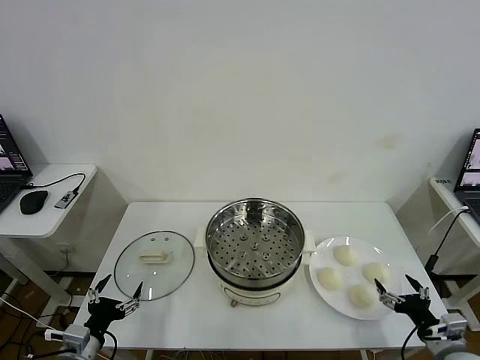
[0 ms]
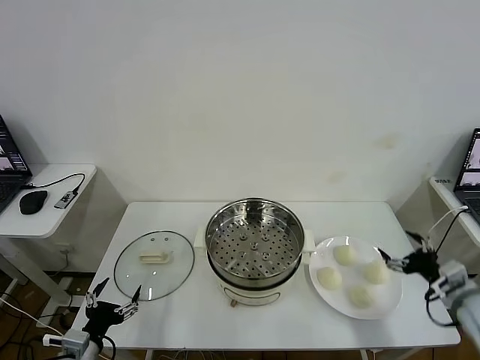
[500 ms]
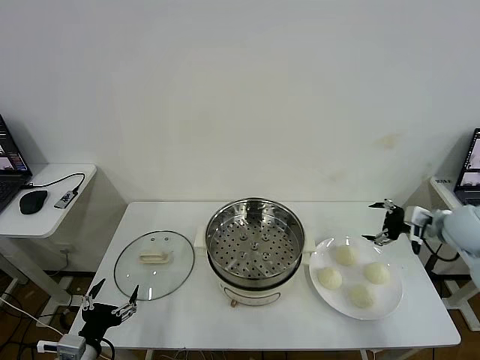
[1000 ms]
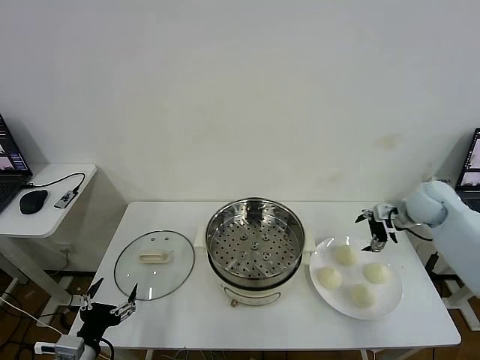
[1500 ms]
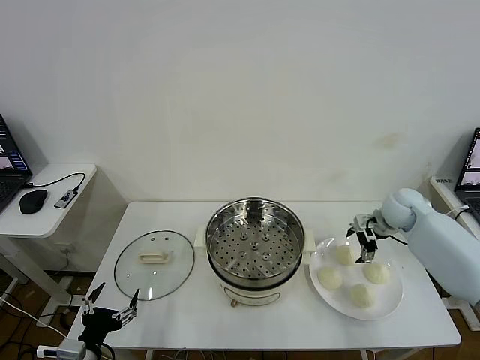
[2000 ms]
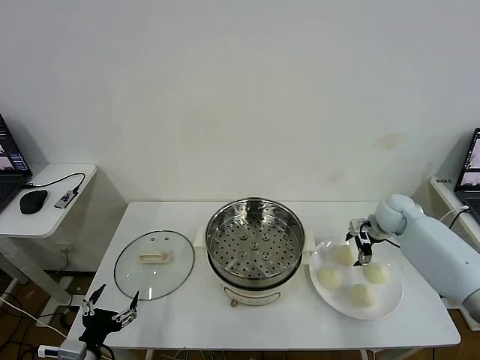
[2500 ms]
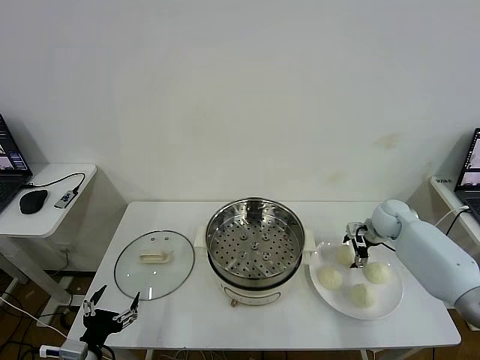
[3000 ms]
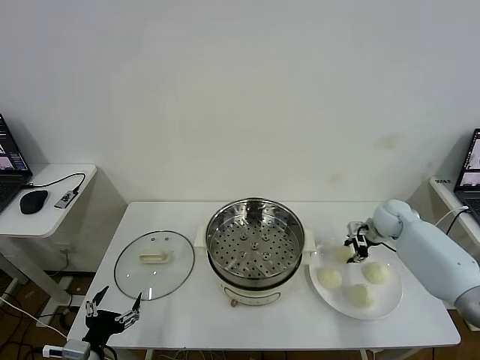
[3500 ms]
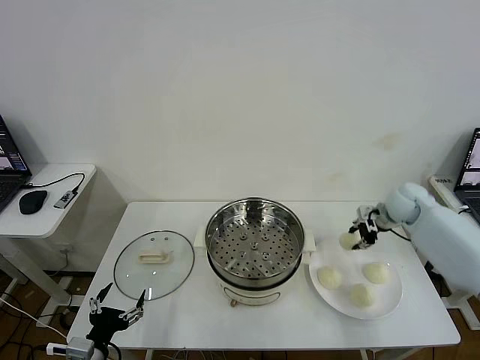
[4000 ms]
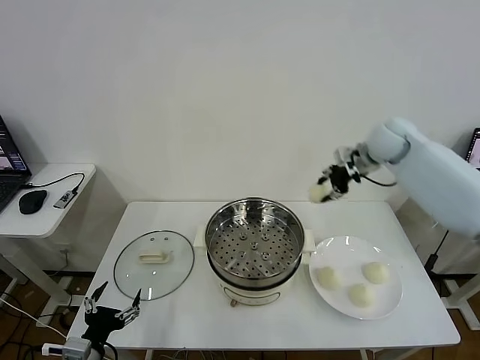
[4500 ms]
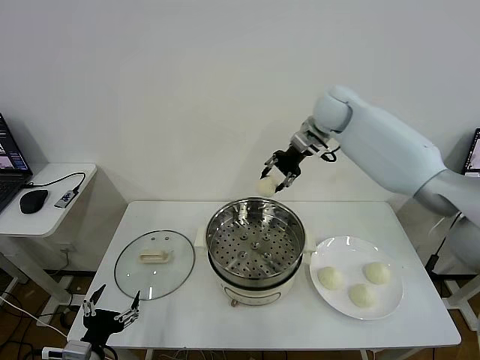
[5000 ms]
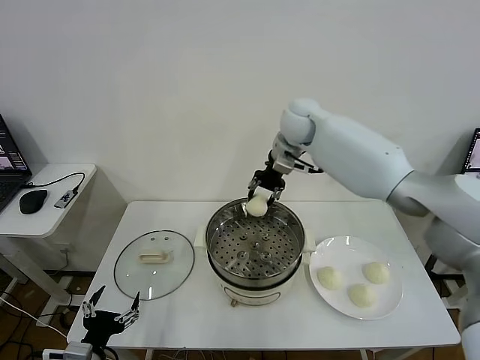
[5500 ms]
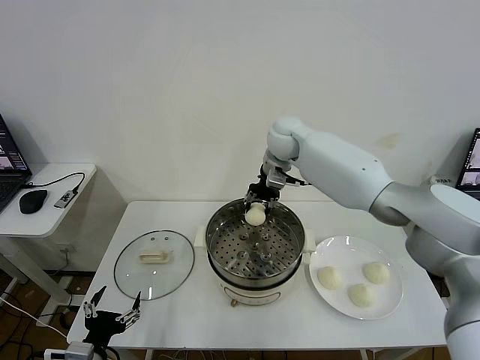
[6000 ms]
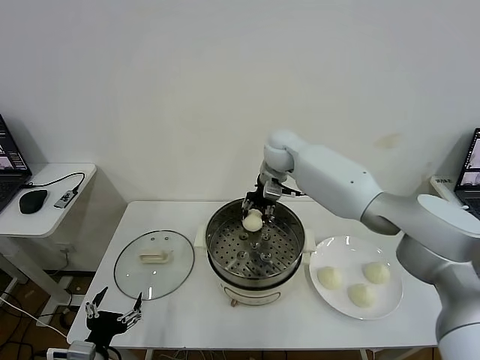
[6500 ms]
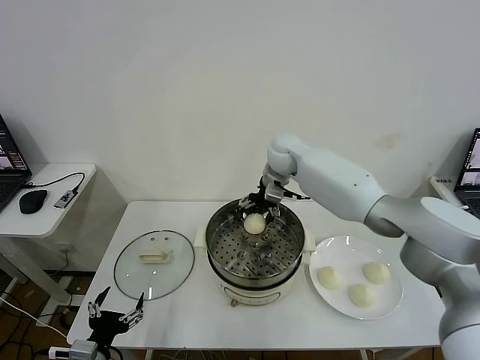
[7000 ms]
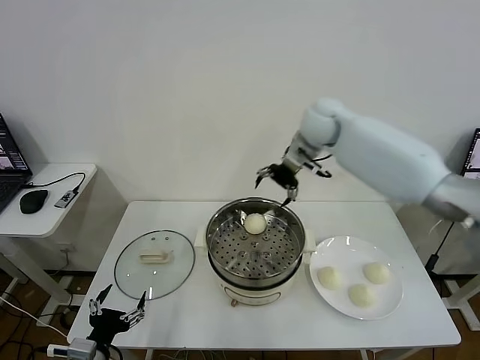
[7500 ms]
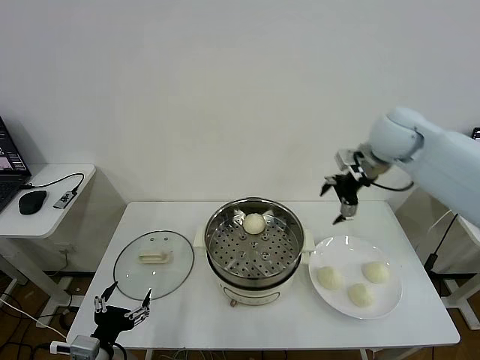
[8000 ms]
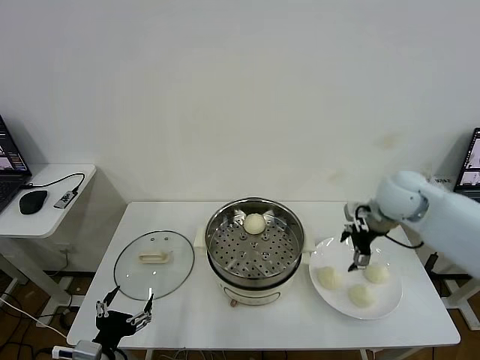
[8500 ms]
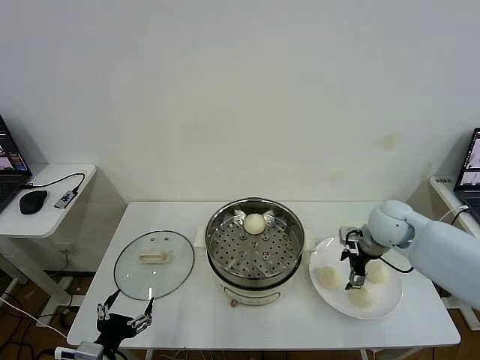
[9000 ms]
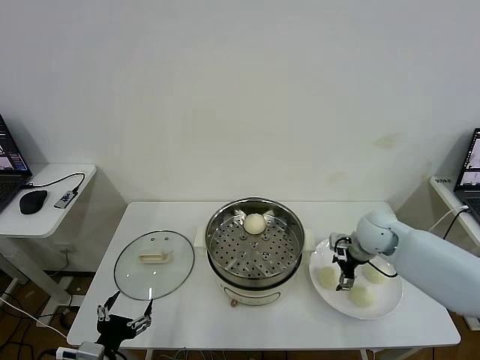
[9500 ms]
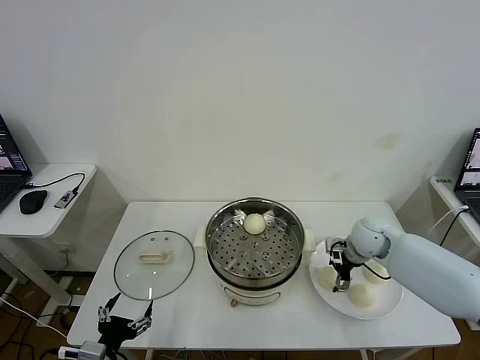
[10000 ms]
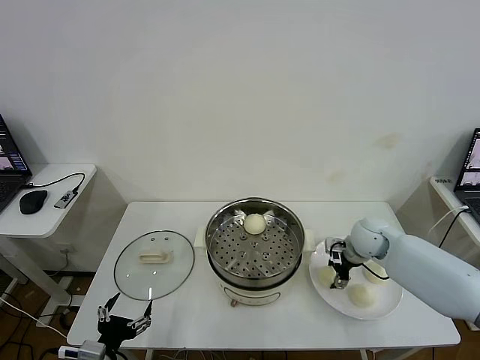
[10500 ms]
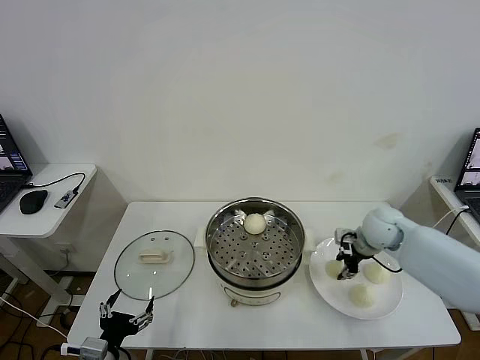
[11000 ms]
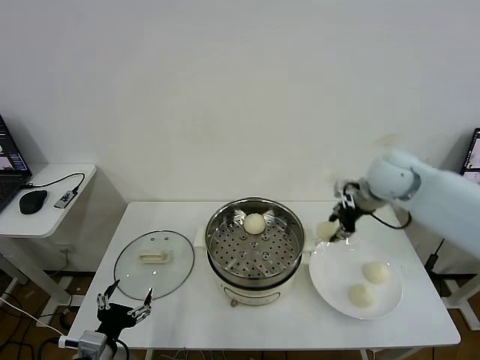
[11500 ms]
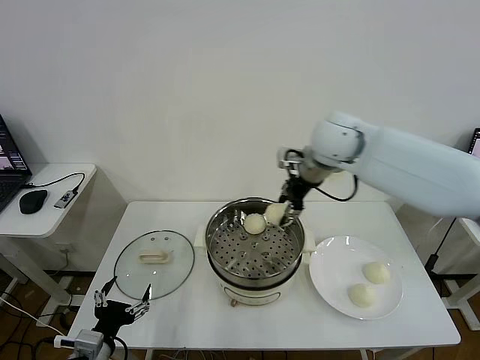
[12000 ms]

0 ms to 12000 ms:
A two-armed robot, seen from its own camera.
Task of the whole recording: take steamed baozi put them in steamer then cover it.
Step, 0 ms to 3000 ms: Grasp the baozi in the plate with right gripper.
Step, 4000 ms to 7000 ms: Place the baozi on the steamer with right gripper.
Step, 7500 ms to 10500 ms: Grasp the baozi in the plate with right gripper.
2000 ms to 4000 ms: The right gripper is displaced upward by approximately 5 cm, and closes up.
4000 ms to 6000 ms: The right gripper moves to the left, roughly 30 cm.
6000 ms to 8000 ms: The right gripper is displaced to the right and backward by approximately 25 cm, and opens its fingers.
8000 ms to 10000 ms: The right gripper is displaced downward by roughly 20 cm.
10000 ms to 12000 ms: The right gripper is displaced upward and to the left by roughly 30 cm, and closes up.

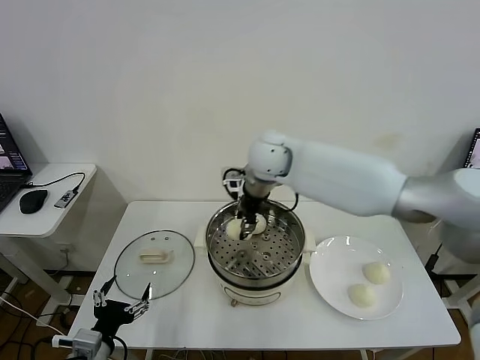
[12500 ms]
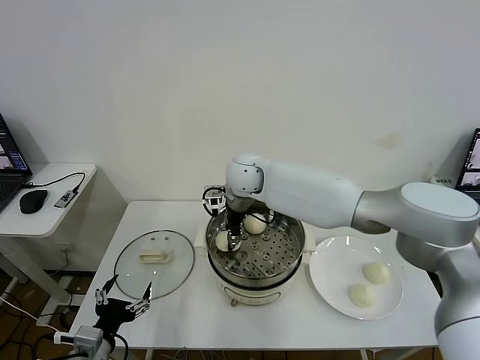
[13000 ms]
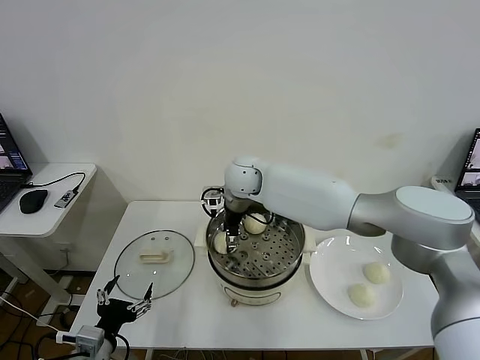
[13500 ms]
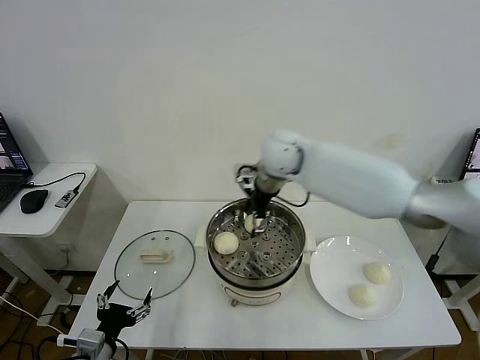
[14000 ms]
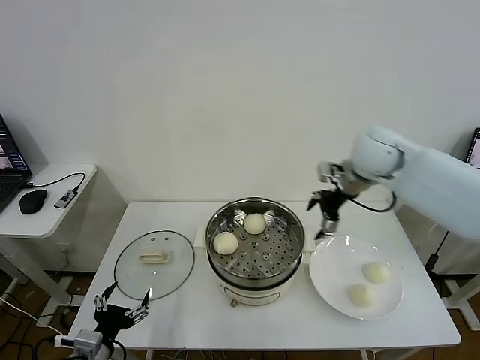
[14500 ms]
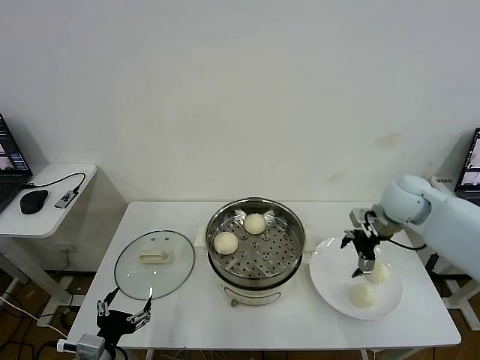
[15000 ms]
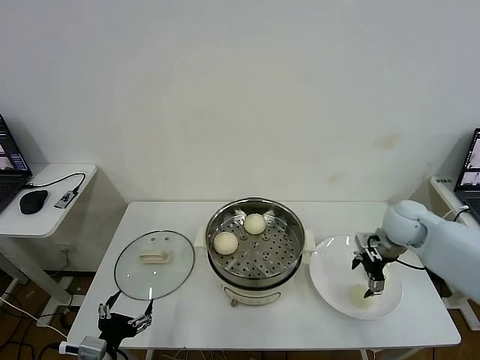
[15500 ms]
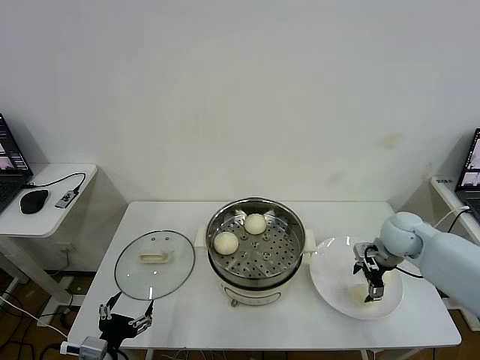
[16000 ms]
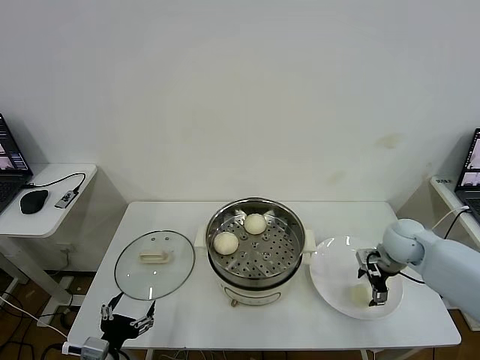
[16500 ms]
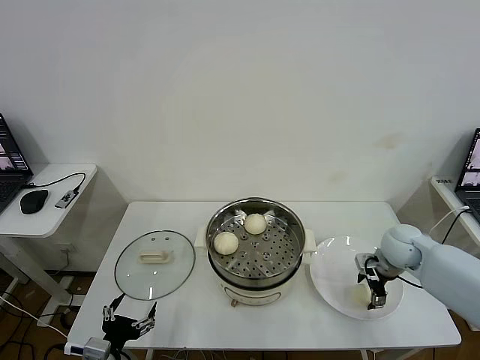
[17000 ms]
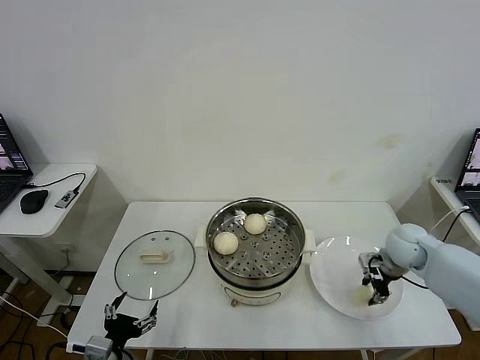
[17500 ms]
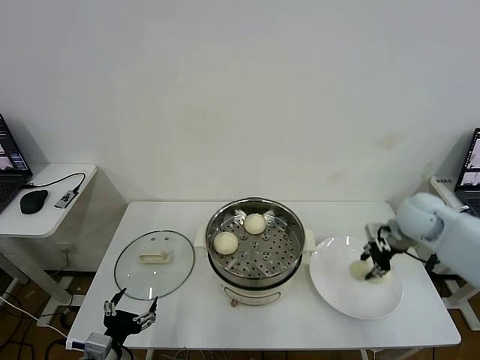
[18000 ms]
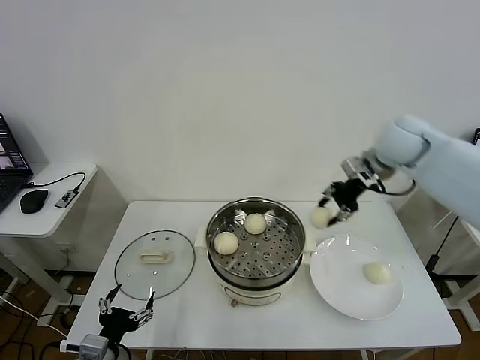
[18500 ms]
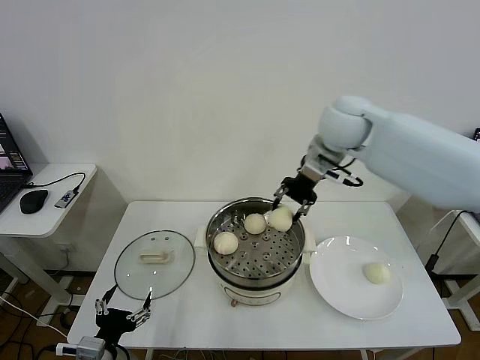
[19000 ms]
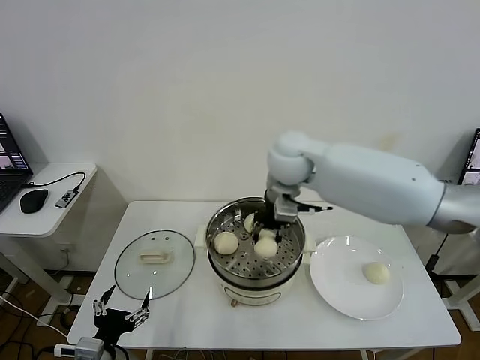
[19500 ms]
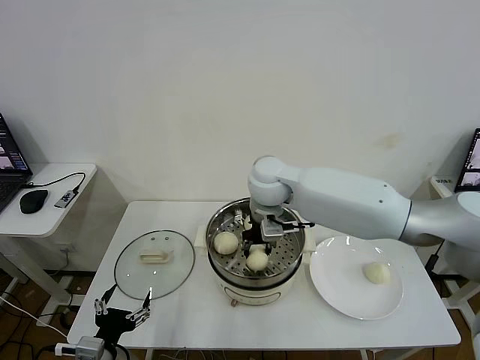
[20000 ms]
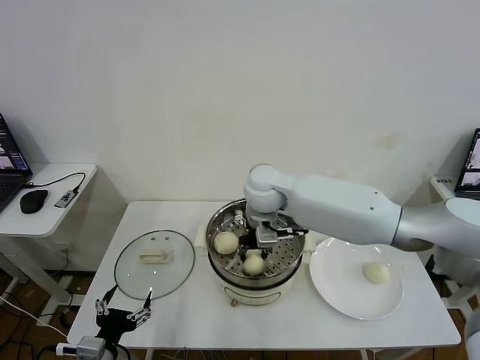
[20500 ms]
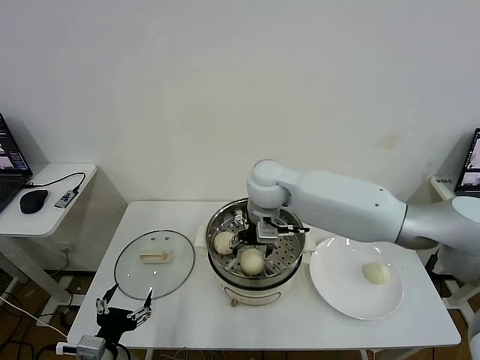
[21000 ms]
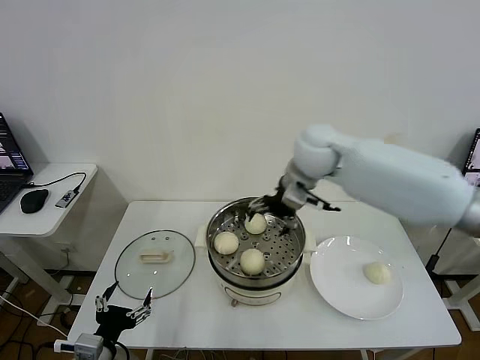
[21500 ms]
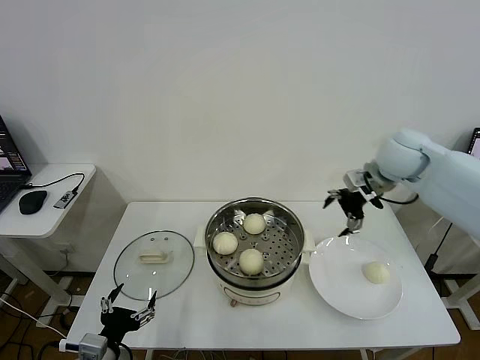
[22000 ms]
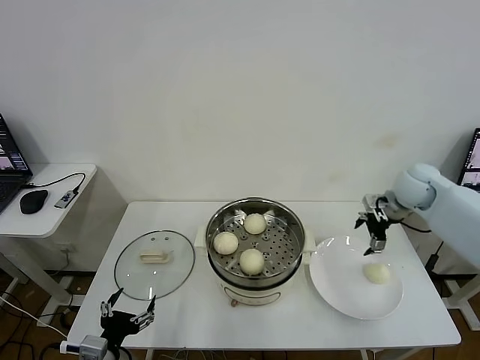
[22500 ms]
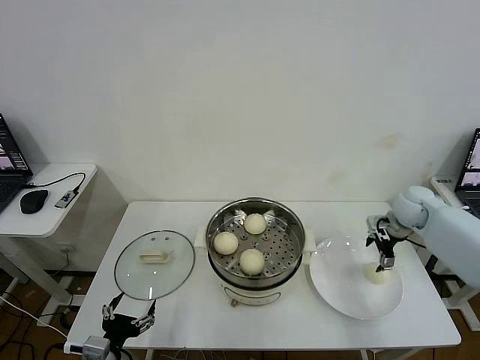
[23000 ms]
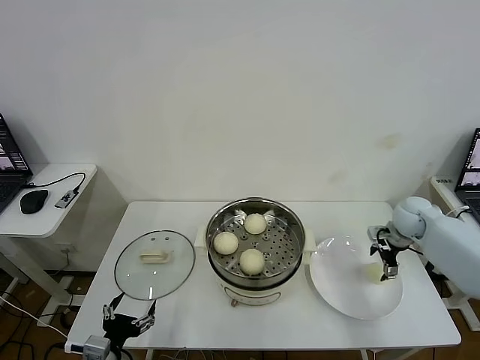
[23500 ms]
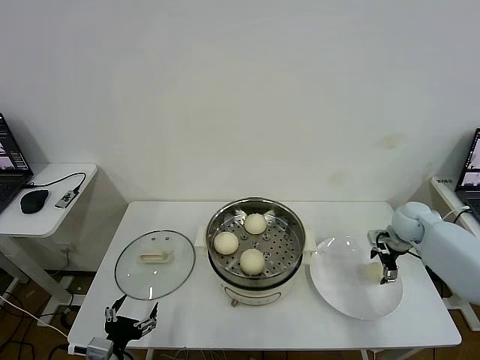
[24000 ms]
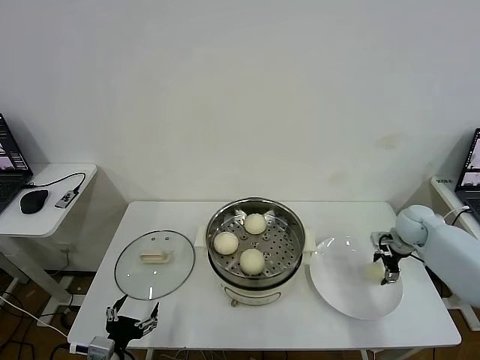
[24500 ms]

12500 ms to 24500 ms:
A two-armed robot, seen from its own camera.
Task of the whole recording: take steamed baozi put them in steamer then cover it.
Step, 14000 ms to 17000 ms: Grasp the baozi in the plate with right gripper.
Step, 18000 ms to 21000 ms: Place the baozi on the steamer with right gripper.
12500 ms to 14500 ms: The right gripper heads to the right, covering about 25 cm, and opens its fingers.
14500 ms to 16500 ms: The right gripper travels downward and to the right by about 20 cm.
16500 ms to 18500 ms: The right gripper is displaced upward by roughly 25 cm, and closes up.
18500 ms to 20500 ms: The right gripper is displaced to the left and downward by some 25 cm.
20500 ms to 22500 ms: The right gripper heads to the right, covering approximately 35 cm, and opens up.
22500 ms to 24500 ms: The right gripper is displaced downward by about 10 cm.

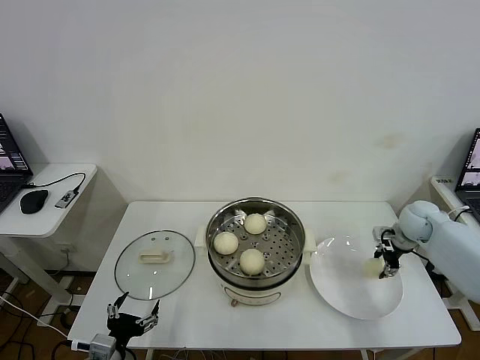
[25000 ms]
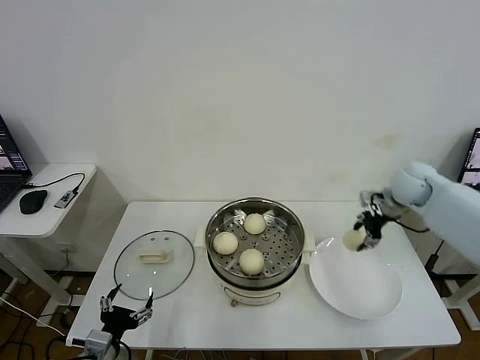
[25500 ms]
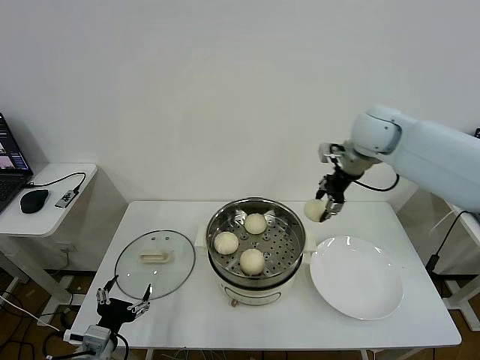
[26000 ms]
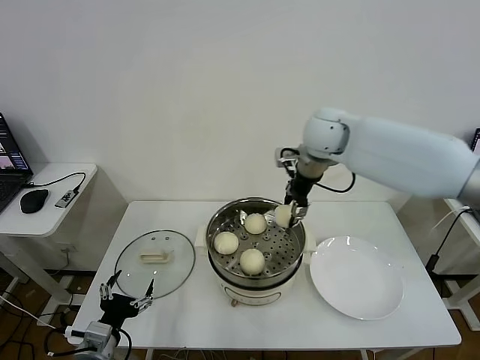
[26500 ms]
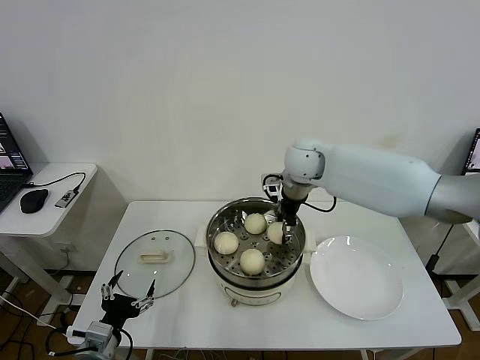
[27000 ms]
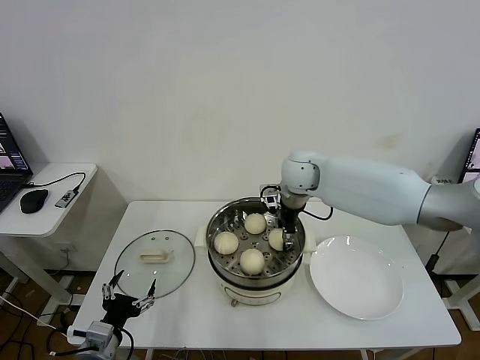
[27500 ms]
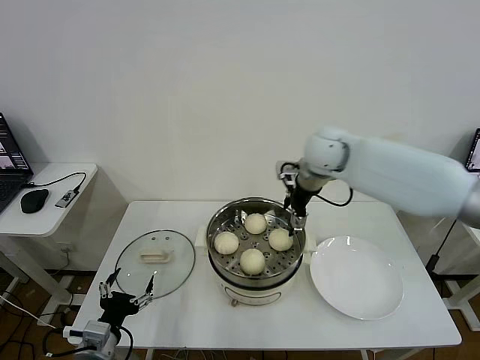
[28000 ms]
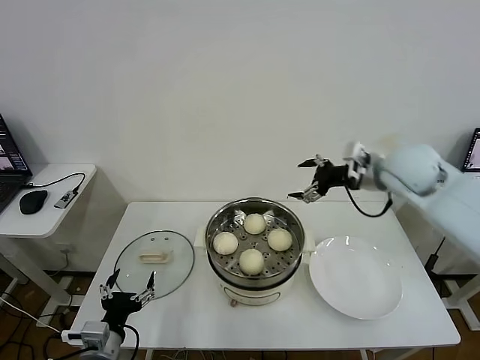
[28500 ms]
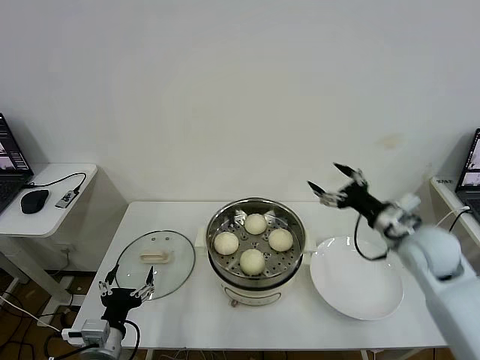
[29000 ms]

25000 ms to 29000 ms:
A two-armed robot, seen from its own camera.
Task of the whole recording: take steamed baozi put them in steamer then cover it.
Step, 25500 ms to 27500 ms: Place the baozi on the steamer with right gripper.
25000 ms to 27000 ms: The right gripper shifts approximately 35 cm to the left and upward.
27000 ms to 29000 ms: The right gripper moves to the right and backward, approximately 30 cm, and opens its fingers.
